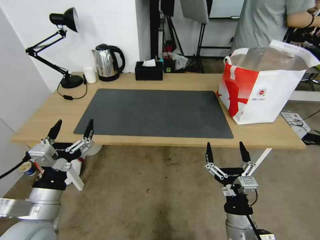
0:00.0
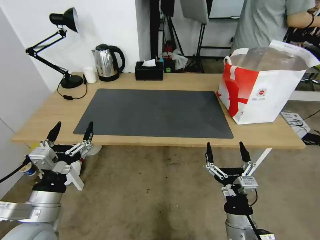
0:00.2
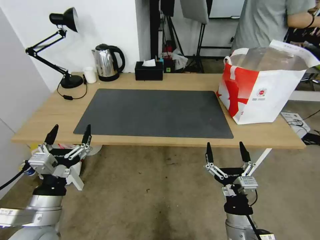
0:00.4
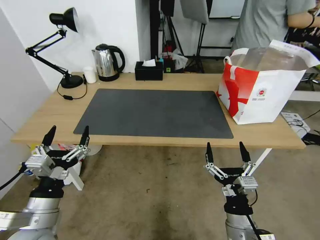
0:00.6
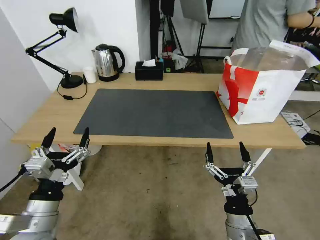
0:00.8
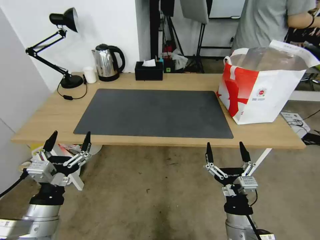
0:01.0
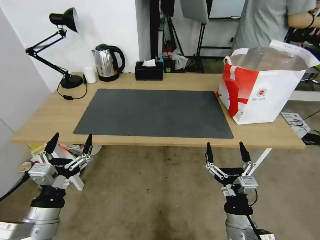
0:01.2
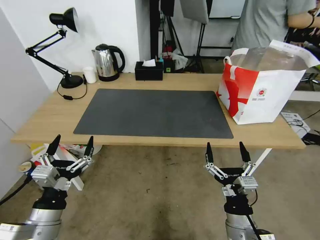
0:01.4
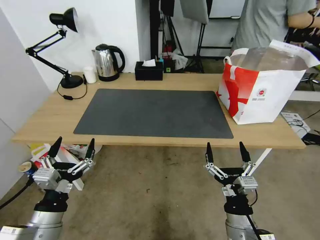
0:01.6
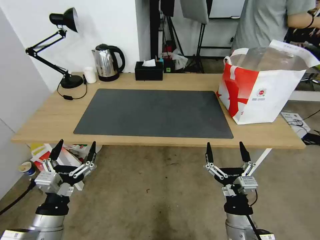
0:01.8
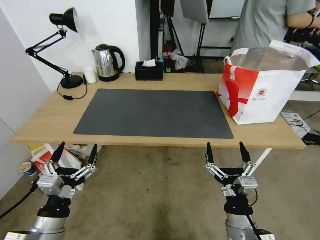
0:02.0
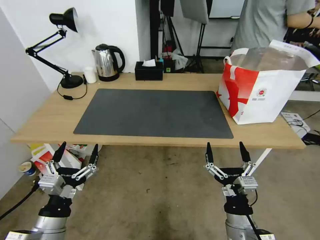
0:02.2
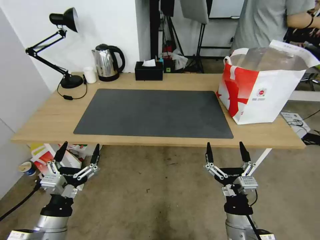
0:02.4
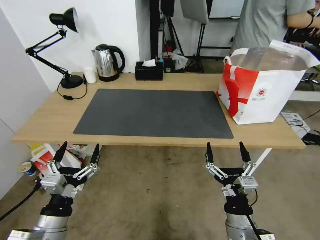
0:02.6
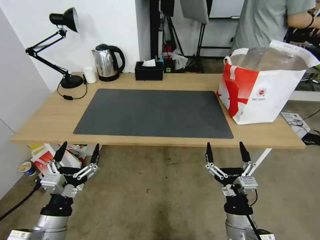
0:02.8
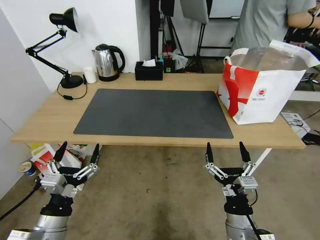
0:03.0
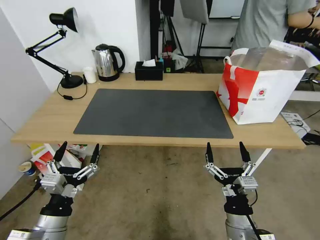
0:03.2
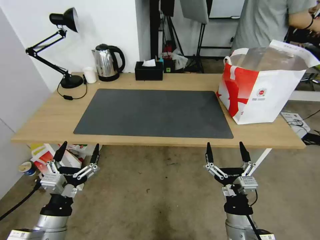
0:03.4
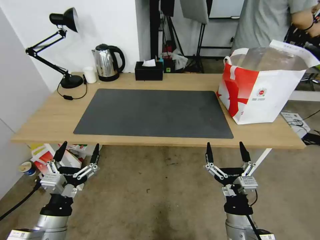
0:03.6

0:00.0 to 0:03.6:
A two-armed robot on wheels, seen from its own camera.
Task of the whole recording: Pick up the trash from the table and place it into the takeout bag.
0:00.0 to 0:01.8: The left gripper shifts about 5 cm downward.
0:01.8 to 0:03.6: Both grippers stay about where they are.
